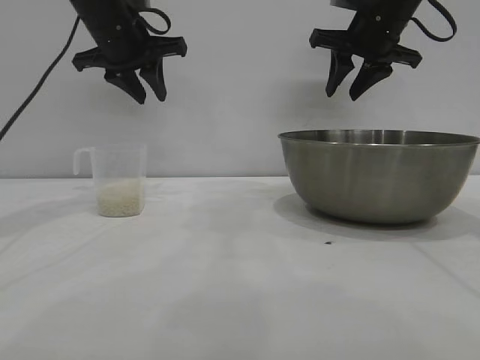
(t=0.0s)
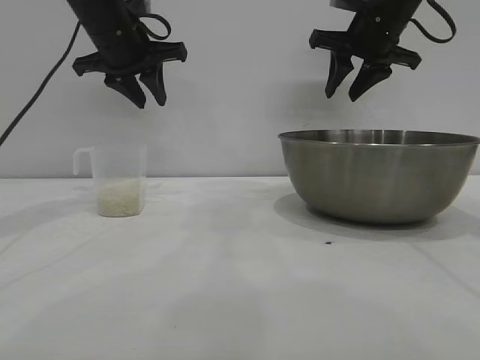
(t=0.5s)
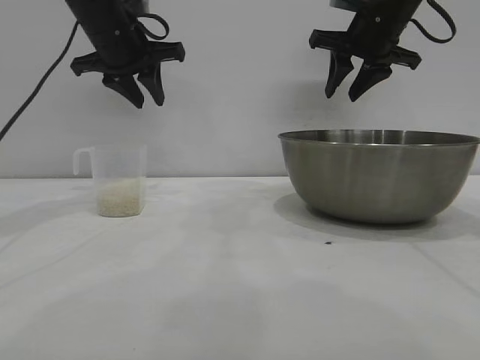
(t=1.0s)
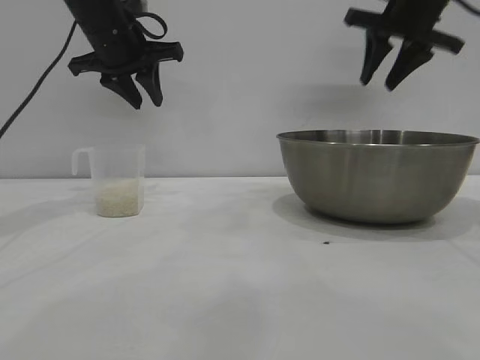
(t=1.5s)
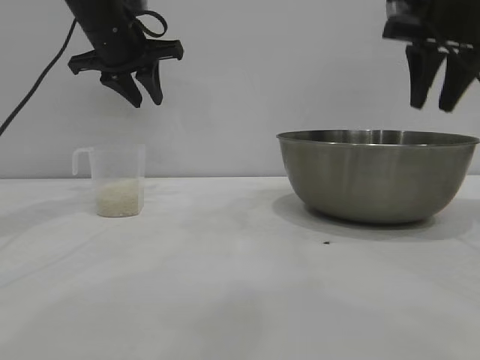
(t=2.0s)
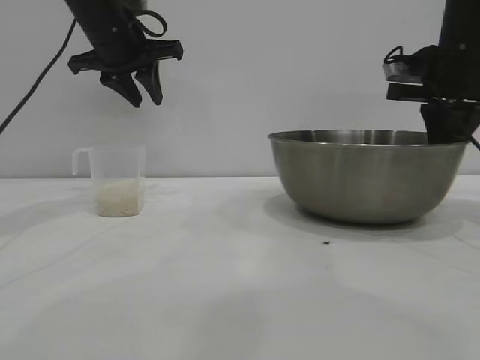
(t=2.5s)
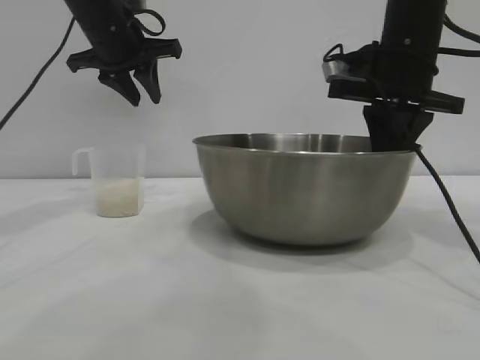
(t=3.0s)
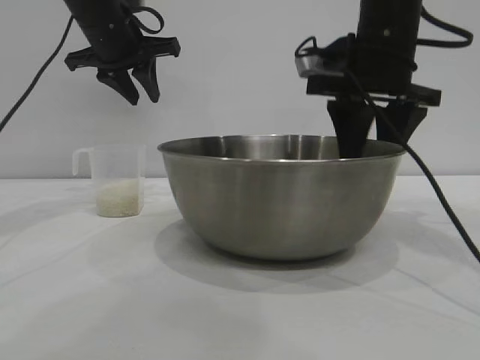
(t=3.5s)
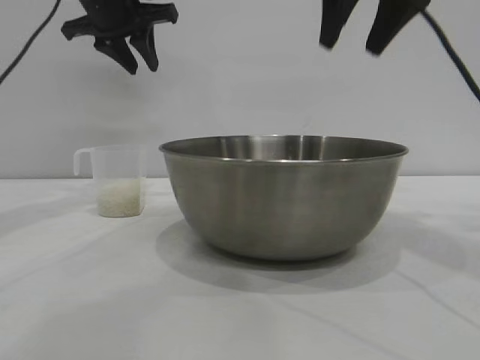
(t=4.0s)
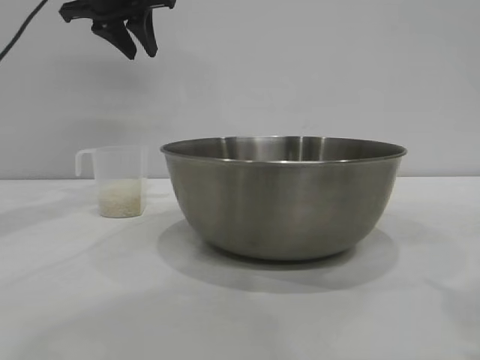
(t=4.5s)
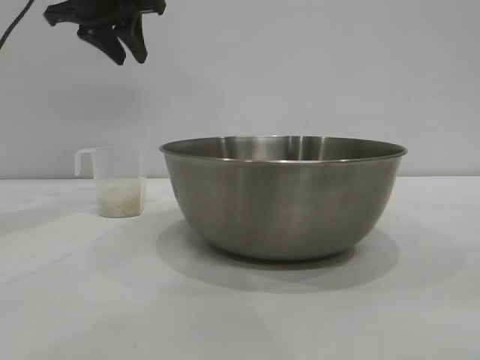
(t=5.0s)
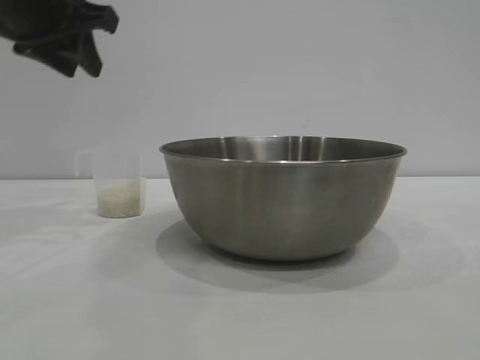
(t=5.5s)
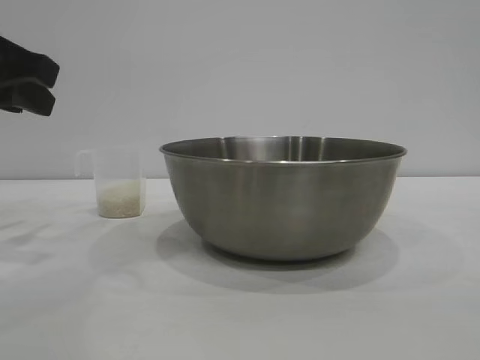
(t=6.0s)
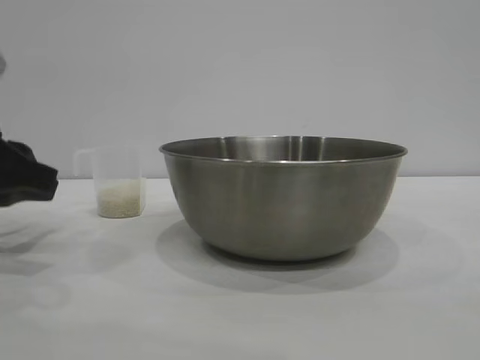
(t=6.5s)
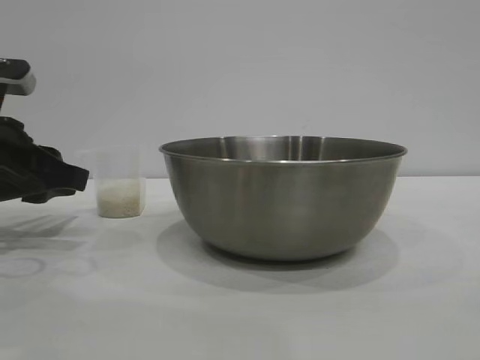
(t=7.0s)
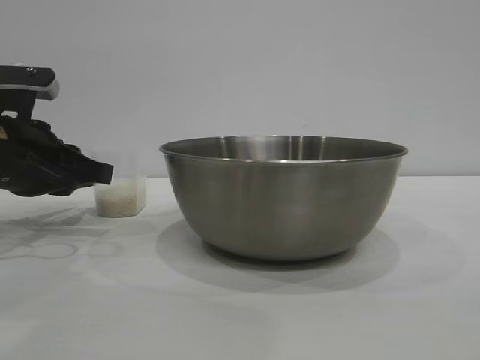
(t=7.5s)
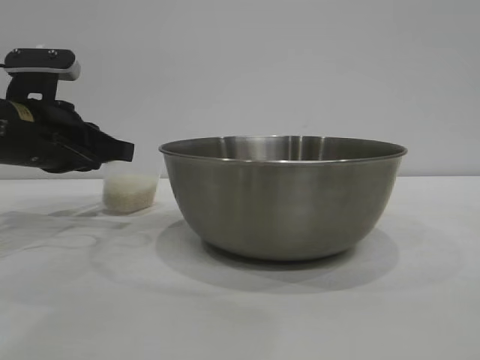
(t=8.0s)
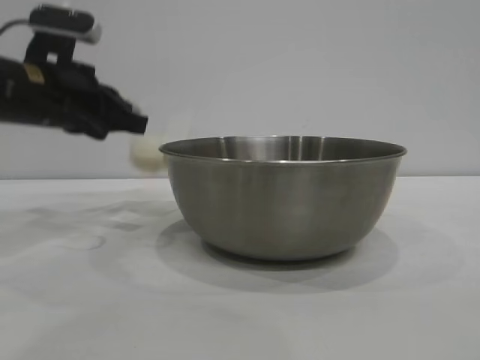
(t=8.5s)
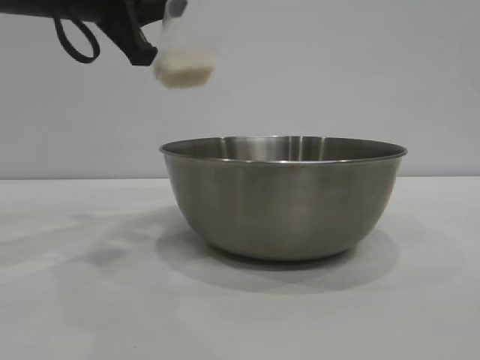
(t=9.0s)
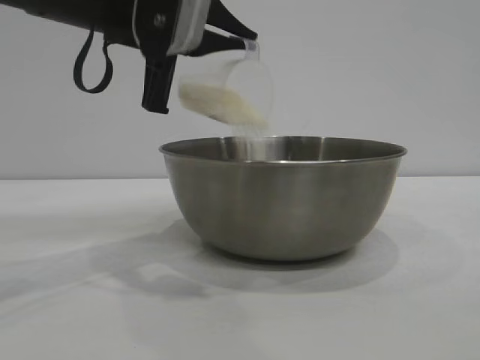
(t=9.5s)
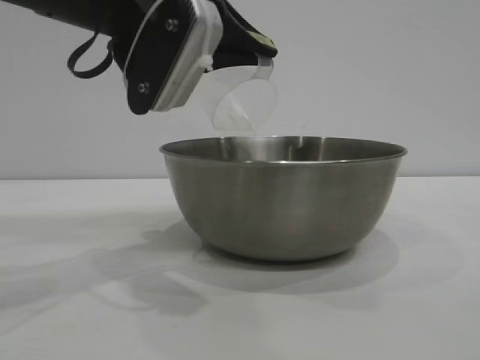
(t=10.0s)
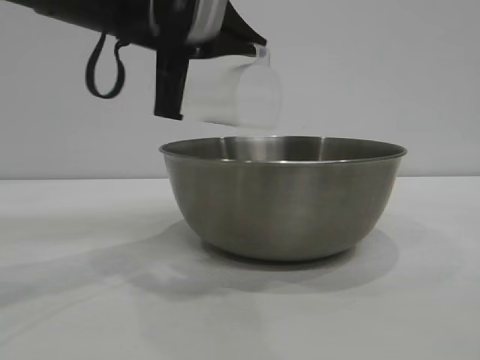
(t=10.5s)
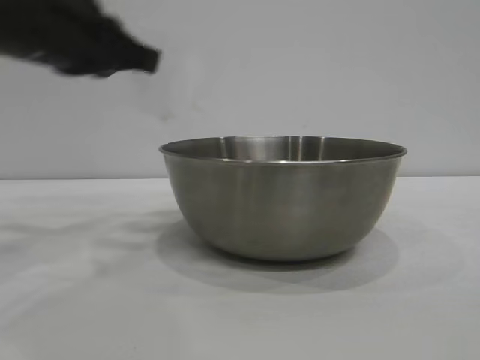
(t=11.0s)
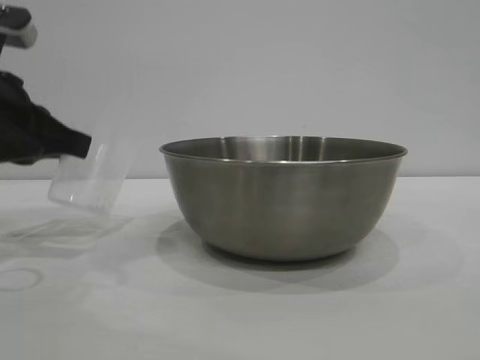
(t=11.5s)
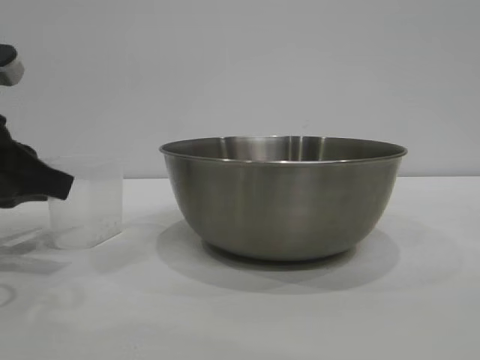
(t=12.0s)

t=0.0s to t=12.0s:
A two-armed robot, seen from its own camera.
Task of the whole recording: the right gripper grasp the rice container and place it in the center of the table, the left gripper grasp the rice scoop and pour the rice into the rice container.
Step, t=0.0s to t=3.5s: Move the bowl to the center of view with the right gripper.
Step, t=4.0s to t=8.0s: Pick up the cup with rice in it with the left gripper.
Step, t=8.5s to t=10.0s: Pour the rice from the cup into the bowl with the left gripper.
